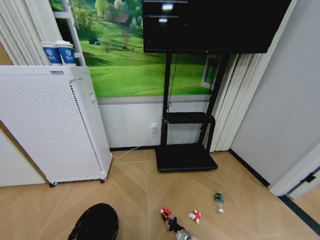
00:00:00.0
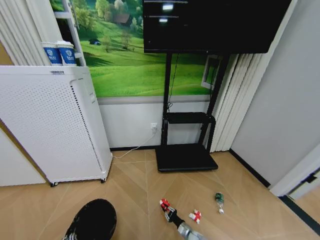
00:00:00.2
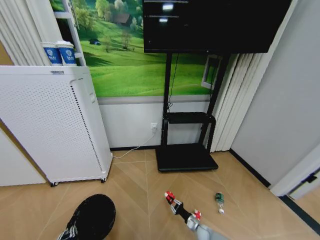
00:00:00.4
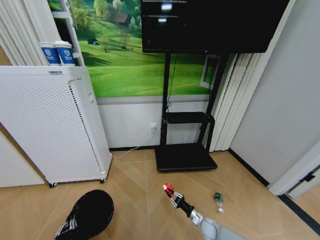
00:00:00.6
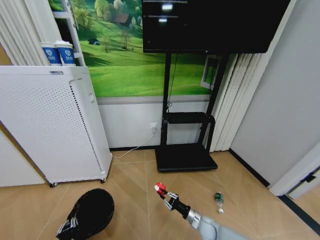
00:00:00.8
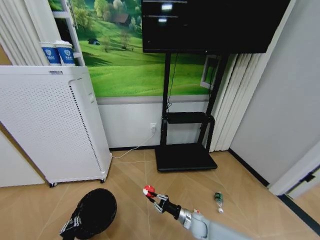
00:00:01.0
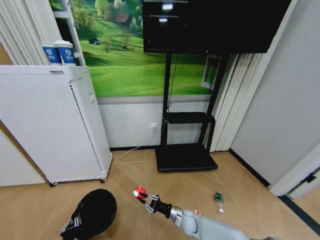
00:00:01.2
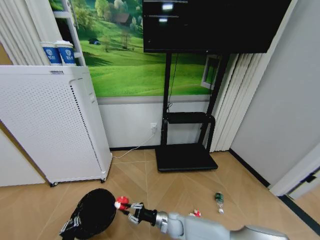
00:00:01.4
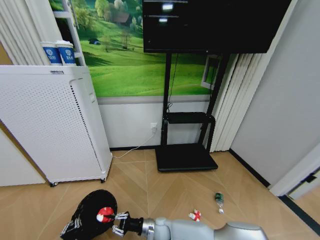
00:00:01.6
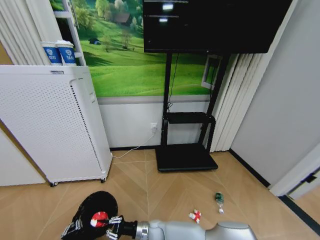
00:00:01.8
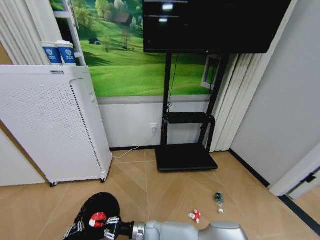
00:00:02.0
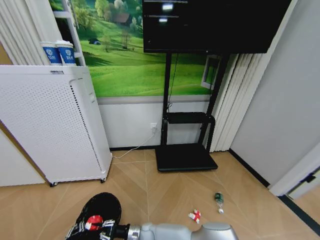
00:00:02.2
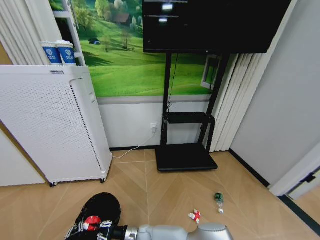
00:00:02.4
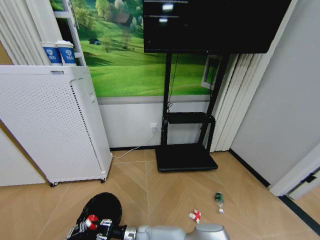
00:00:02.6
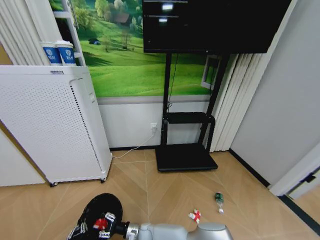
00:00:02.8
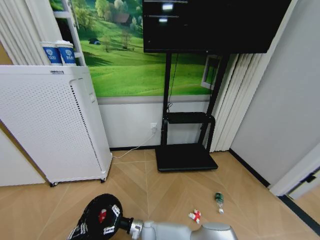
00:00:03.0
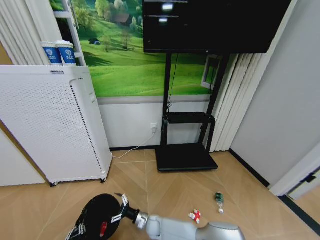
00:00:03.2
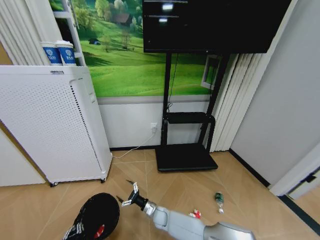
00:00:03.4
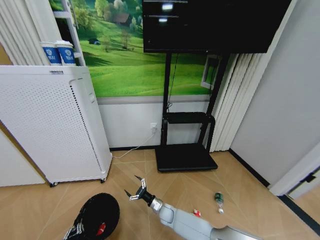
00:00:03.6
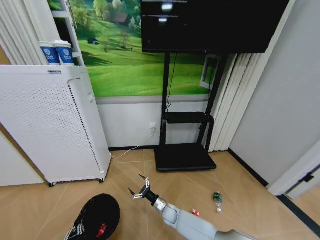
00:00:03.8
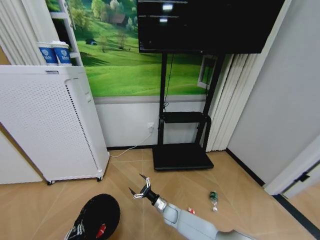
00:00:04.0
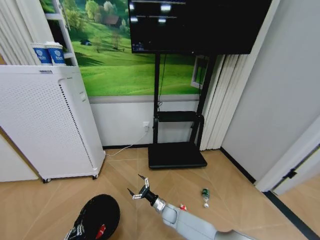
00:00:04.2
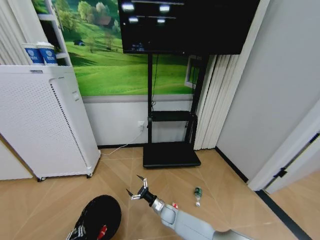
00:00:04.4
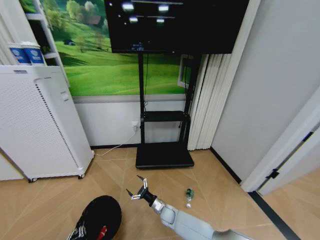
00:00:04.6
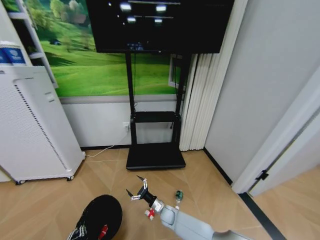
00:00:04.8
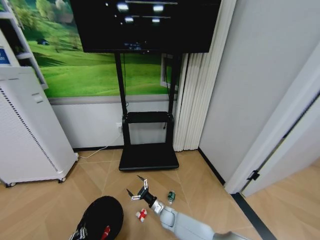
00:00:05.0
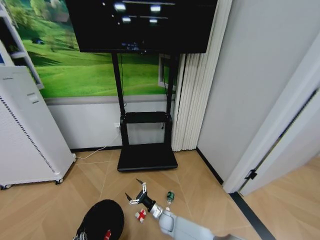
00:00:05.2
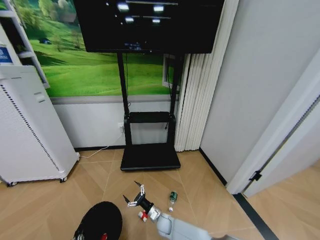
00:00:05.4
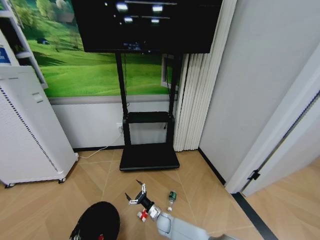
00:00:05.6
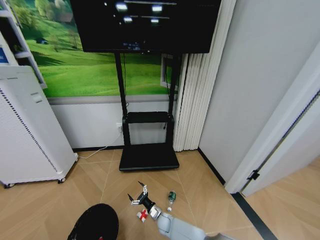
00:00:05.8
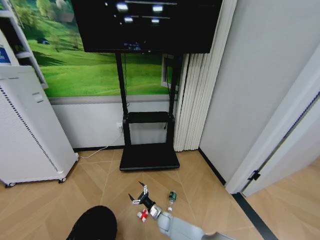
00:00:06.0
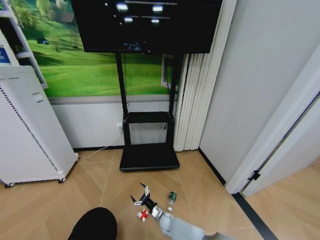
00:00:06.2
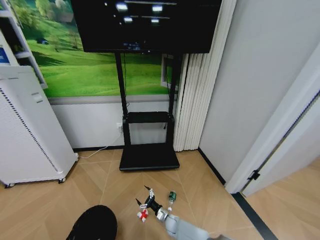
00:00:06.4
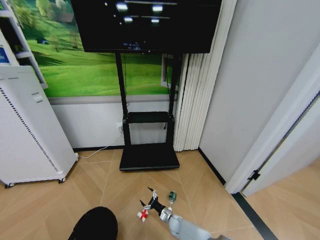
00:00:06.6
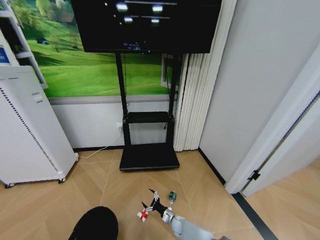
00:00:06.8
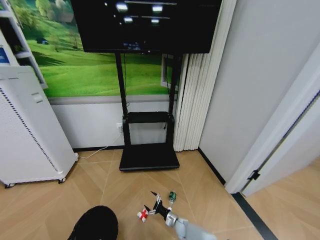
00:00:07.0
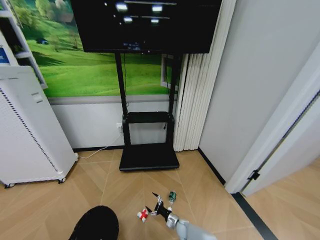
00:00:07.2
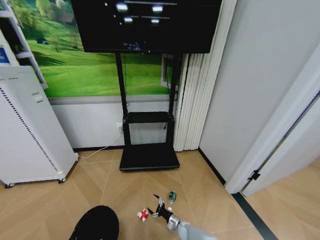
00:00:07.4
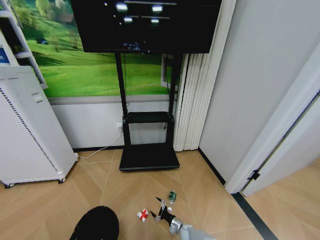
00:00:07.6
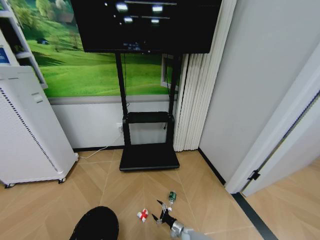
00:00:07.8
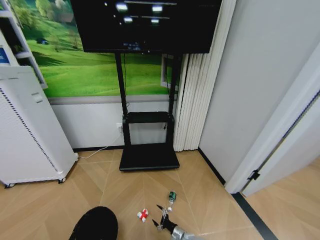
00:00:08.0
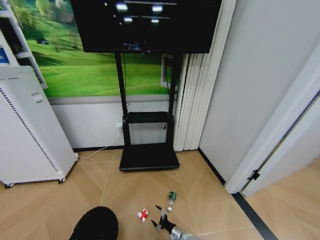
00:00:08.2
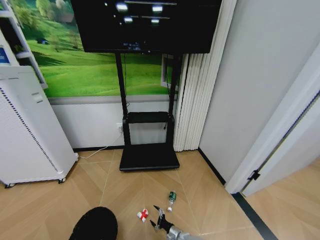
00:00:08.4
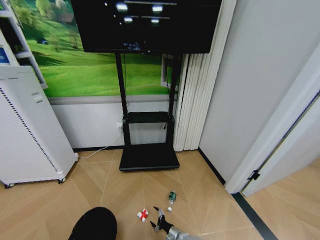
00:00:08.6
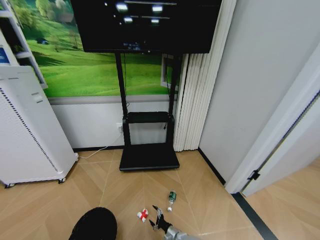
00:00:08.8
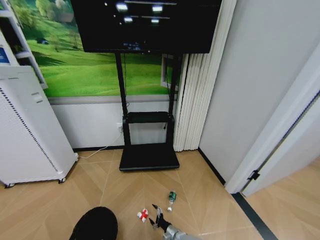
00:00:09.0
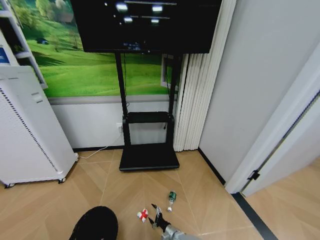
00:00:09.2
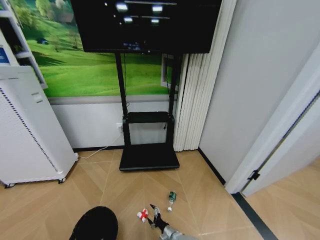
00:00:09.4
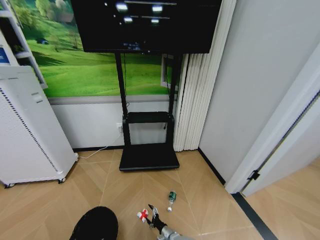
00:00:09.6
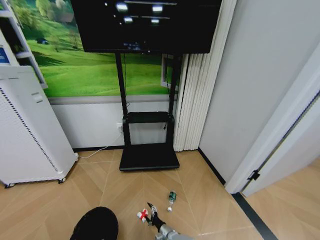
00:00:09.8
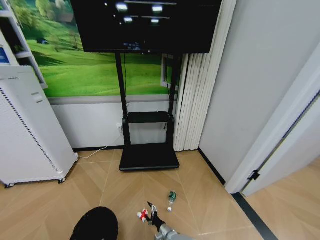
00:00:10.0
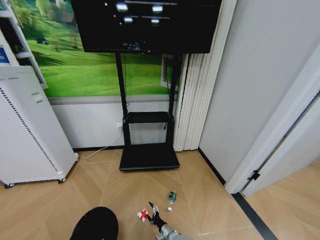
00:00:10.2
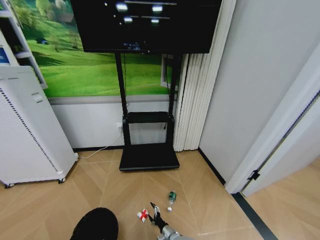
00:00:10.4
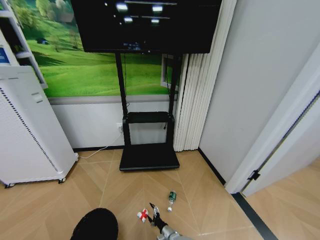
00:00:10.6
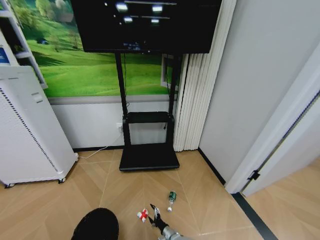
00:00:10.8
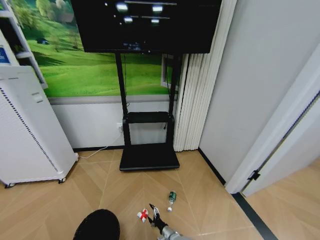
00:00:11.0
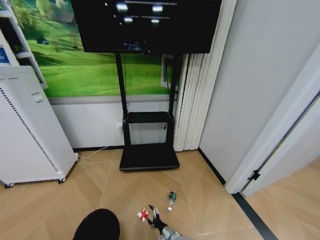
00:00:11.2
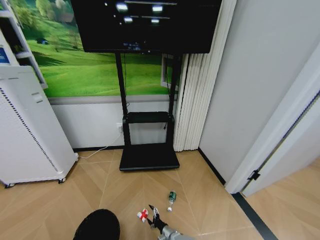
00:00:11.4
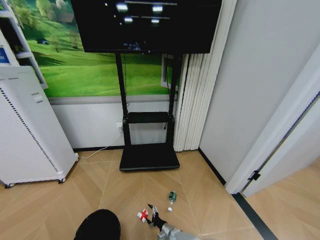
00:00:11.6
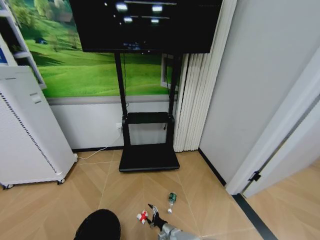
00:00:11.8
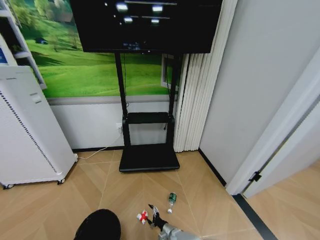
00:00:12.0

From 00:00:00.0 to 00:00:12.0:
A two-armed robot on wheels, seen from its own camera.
Task of the whole recording: Pick up the trash bin and place the garbage on the floor into it.
From 00:00:00.0 to 00:00:01.6: The left gripper goes roughly 10 cm forward; the right gripper shifts approximately 25 cm to the left and upward.
From 00:00:01.6 to 00:00:03.0: The right gripper heads to the left and downward, covering approximately 10 cm, and opens its fingers.
From 00:00:03.0 to 00:00:04.4: The right gripper shifts approximately 15 cm to the right and forward.
From 00:00:04.4 to 00:00:06.0: The right gripper moves downward, about 5 cm. The left gripper moves backward, approximately 5 cm.
From 00:00:06.0 to 00:00:07.6: The right gripper travels to the right and downward by roughly 15 cm.
From 00:00:07.6 to 00:00:09.0: The right gripper ends up some 5 cm from where it was.
From 00:00:10.4 to 00:00:12.0: The grippers make only small movements.

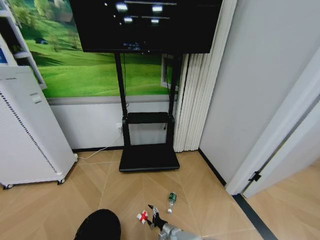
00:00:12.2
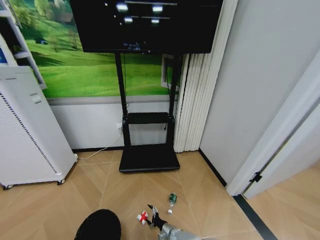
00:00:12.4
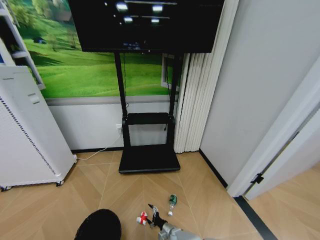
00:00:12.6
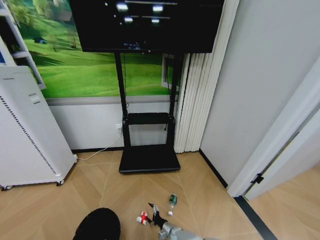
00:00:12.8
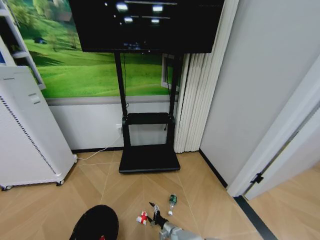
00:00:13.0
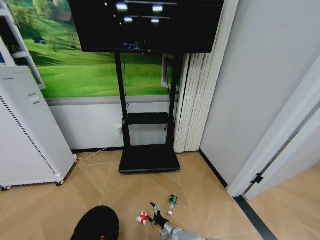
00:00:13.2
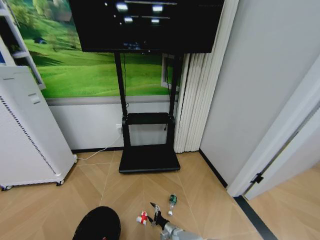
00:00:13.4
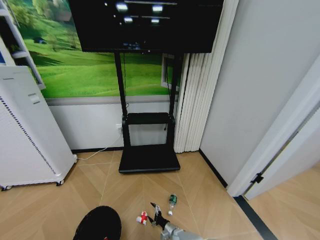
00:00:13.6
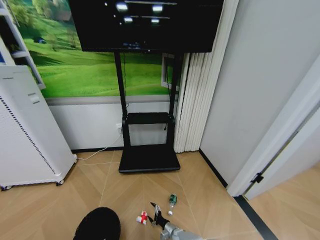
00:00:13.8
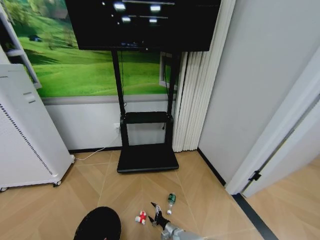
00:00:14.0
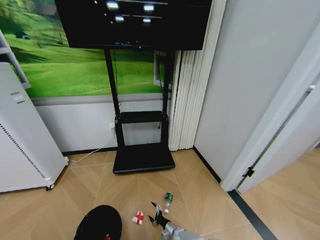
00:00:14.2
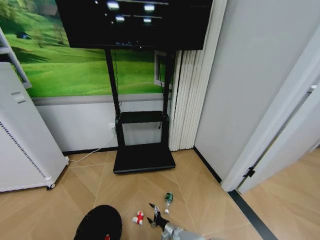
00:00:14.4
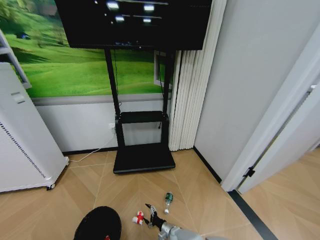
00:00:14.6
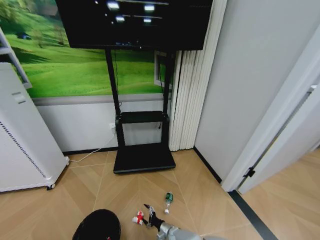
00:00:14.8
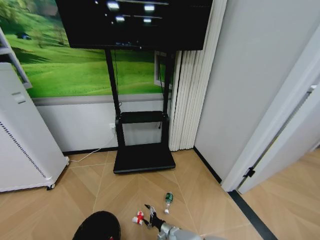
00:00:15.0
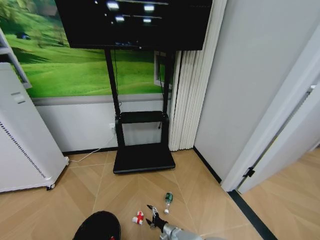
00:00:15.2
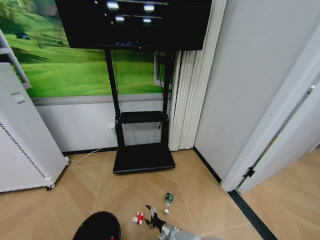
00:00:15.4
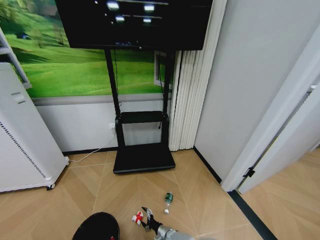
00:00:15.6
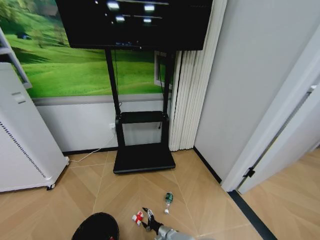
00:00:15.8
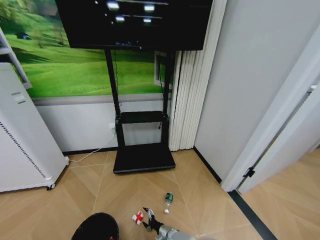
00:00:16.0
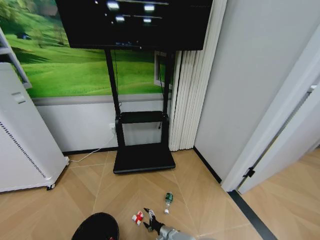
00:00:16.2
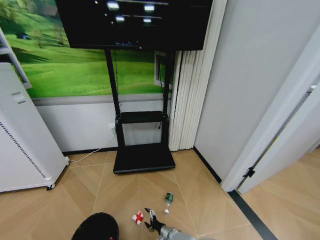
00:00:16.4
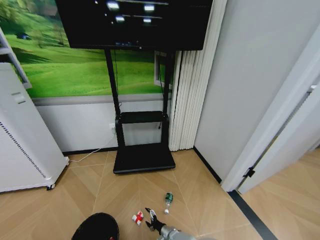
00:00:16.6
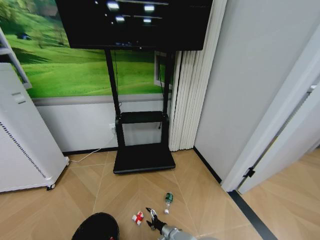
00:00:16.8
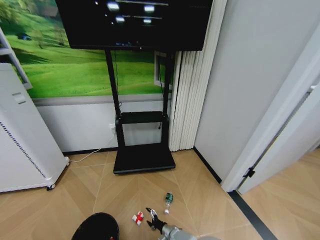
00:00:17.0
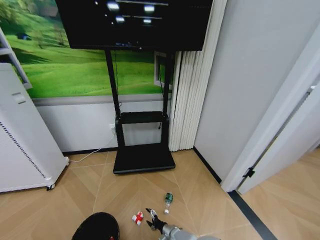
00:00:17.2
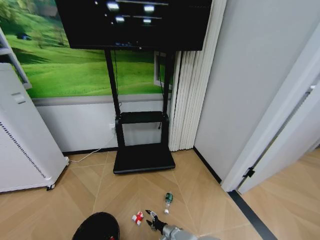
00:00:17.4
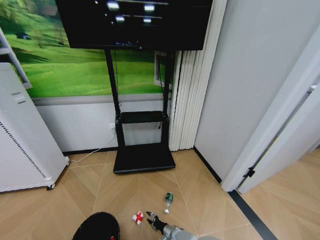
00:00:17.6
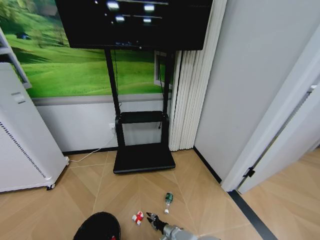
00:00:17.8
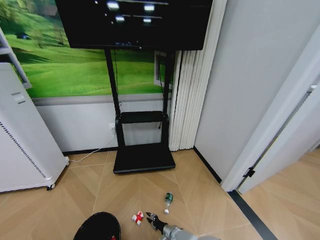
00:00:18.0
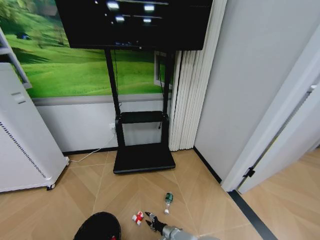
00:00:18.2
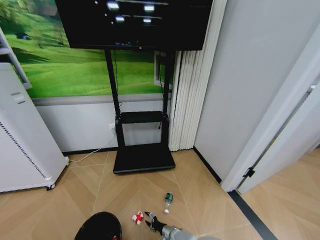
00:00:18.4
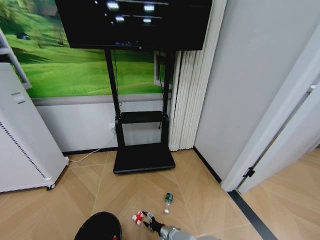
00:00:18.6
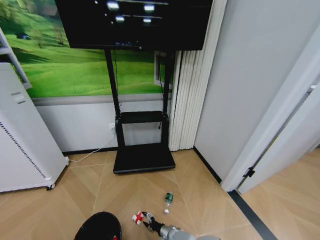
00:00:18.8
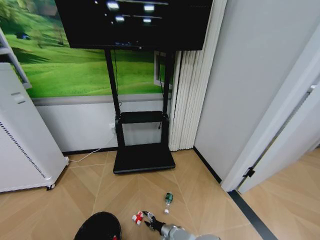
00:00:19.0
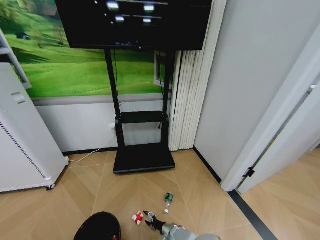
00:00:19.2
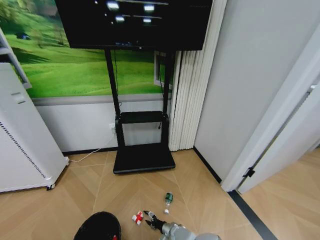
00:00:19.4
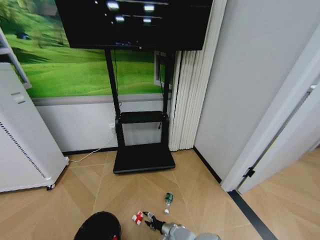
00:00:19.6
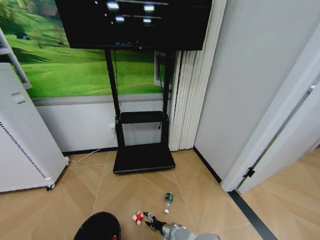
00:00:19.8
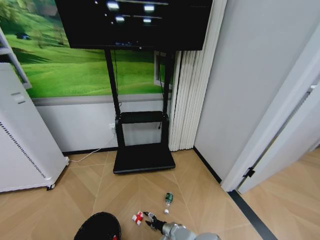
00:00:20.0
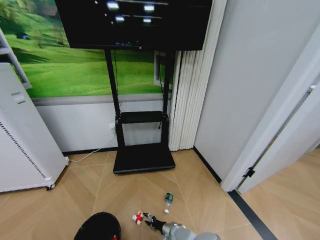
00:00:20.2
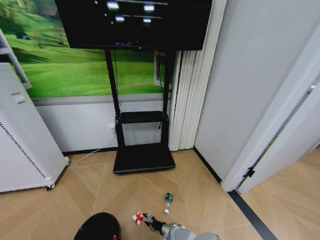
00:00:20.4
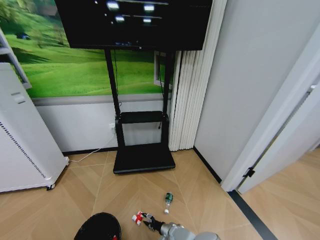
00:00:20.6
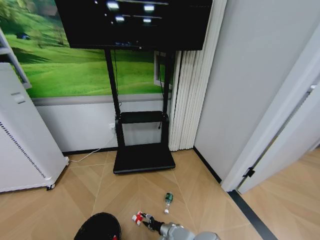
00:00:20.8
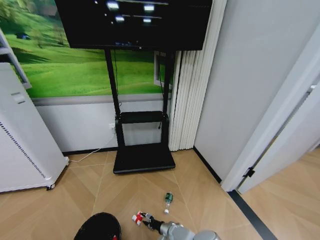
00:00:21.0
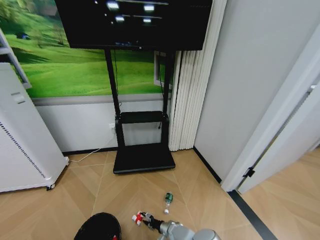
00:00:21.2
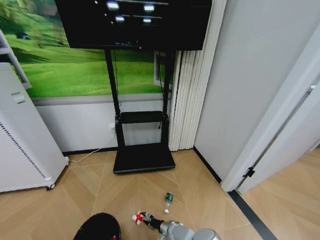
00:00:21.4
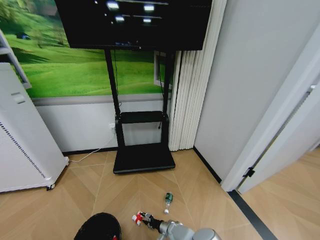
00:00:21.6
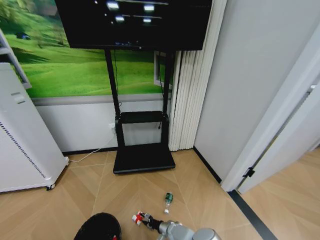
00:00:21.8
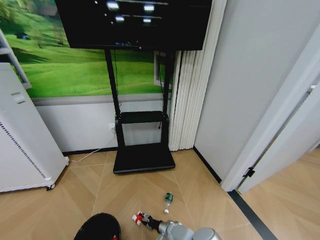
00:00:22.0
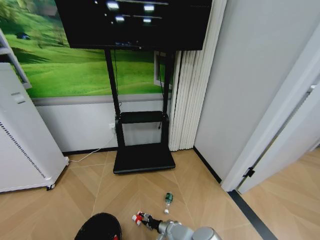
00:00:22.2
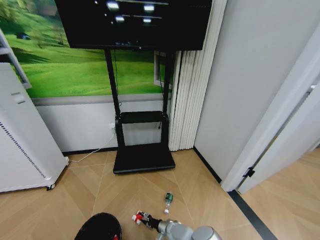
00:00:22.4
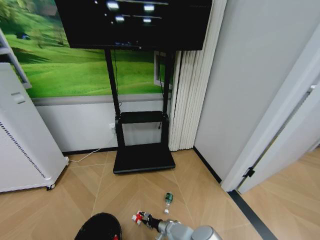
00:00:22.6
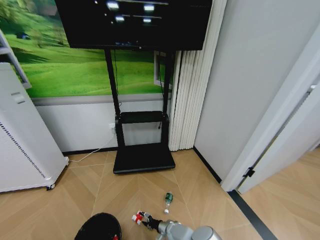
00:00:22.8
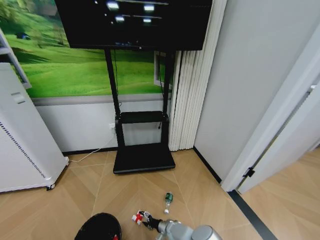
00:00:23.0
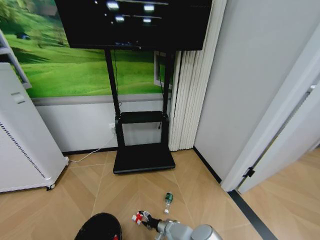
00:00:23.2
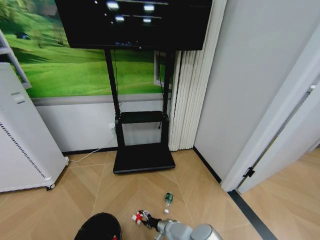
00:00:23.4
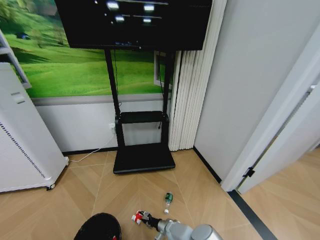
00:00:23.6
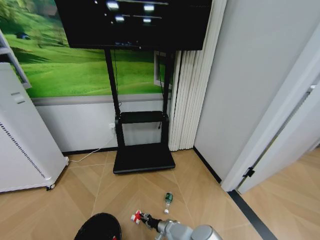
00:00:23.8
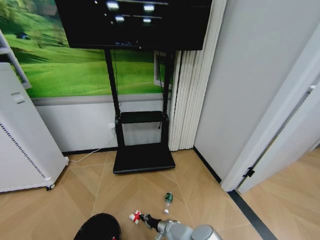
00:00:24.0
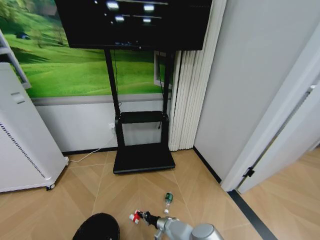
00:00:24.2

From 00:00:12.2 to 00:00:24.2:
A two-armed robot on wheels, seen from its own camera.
Task of the whole recording: Pick up the trash bin and place the garbage on the floor into it.
From 00:00:12.2 to 00:00:13.8: The grippers stay close to where they were, moving slightly.
From 00:00:15.2 to 00:00:16.6: There are only small adjustments of the grippers.
From 00:00:21.2 to 00:00:22.6: Neither gripper changes place.
From 00:00:22.6 to 00:00:24.2: The right gripper closes its fingers.
